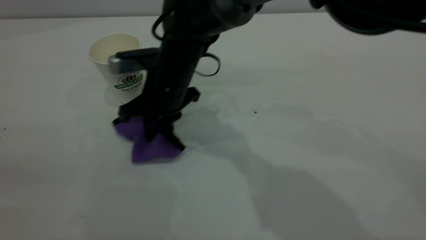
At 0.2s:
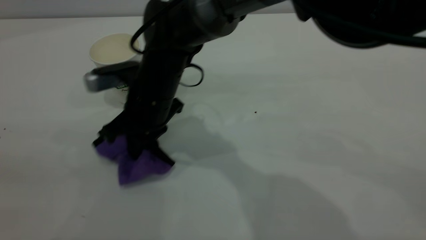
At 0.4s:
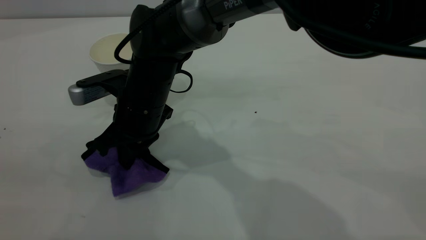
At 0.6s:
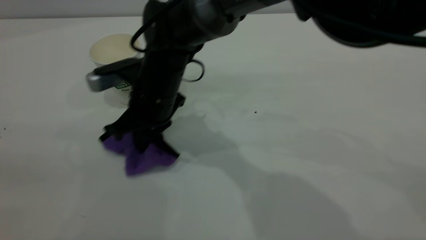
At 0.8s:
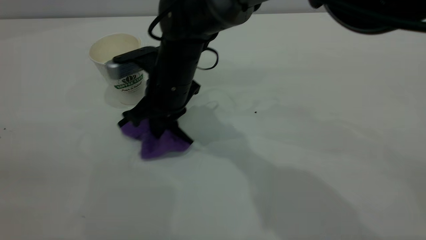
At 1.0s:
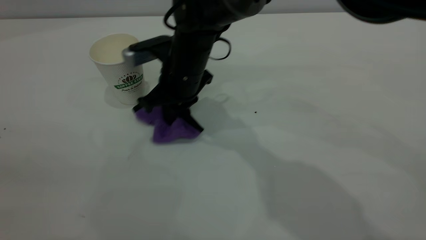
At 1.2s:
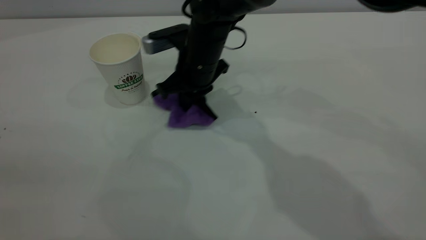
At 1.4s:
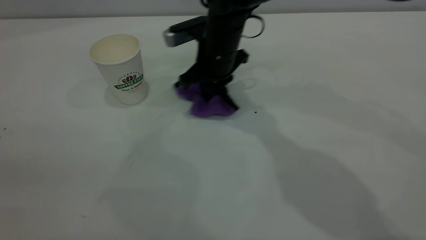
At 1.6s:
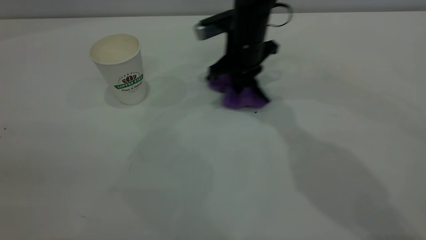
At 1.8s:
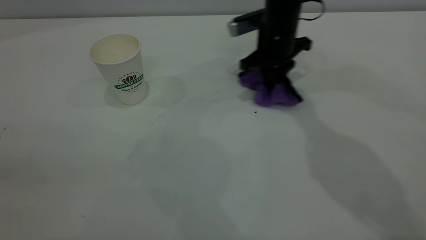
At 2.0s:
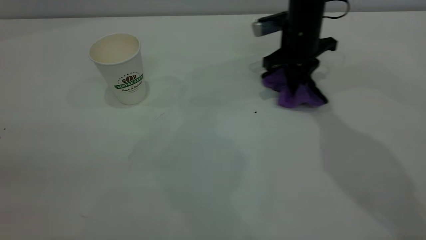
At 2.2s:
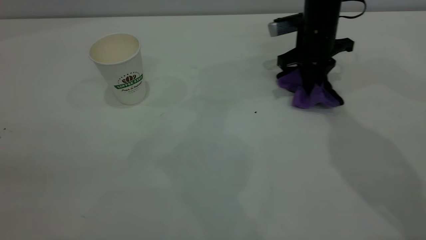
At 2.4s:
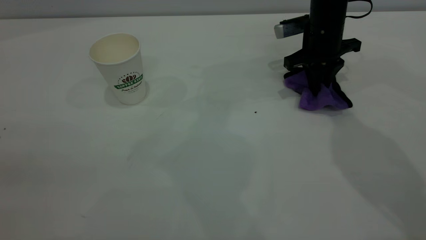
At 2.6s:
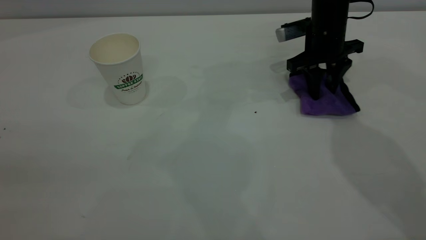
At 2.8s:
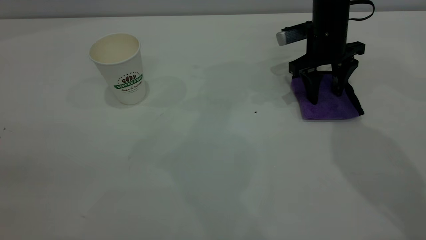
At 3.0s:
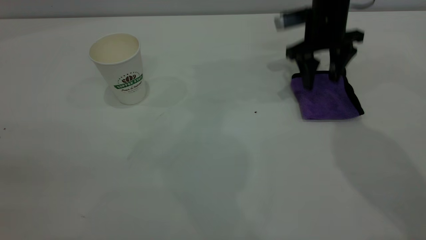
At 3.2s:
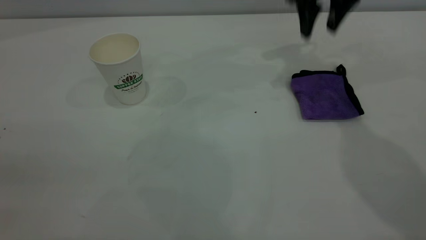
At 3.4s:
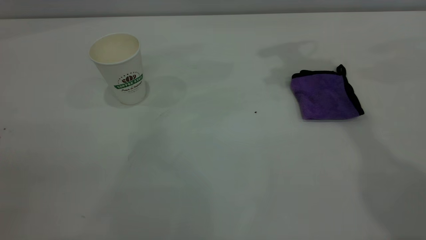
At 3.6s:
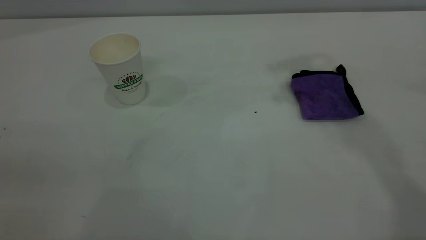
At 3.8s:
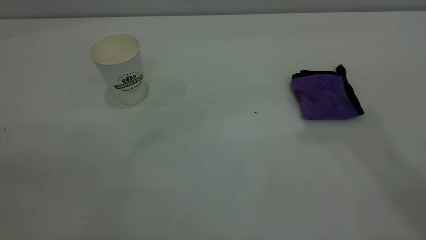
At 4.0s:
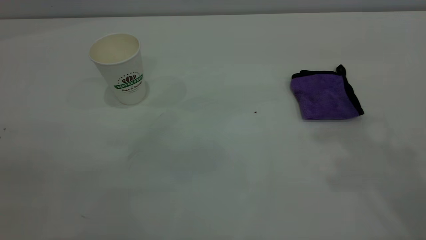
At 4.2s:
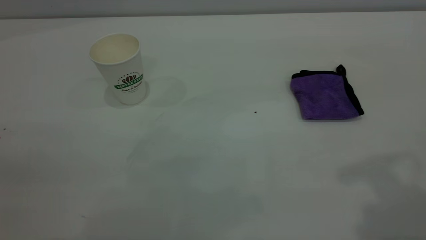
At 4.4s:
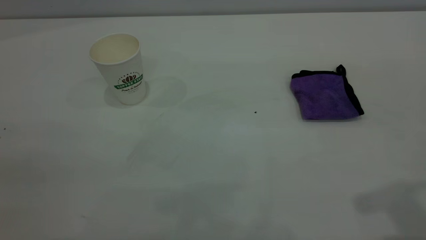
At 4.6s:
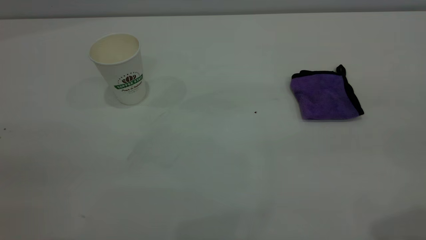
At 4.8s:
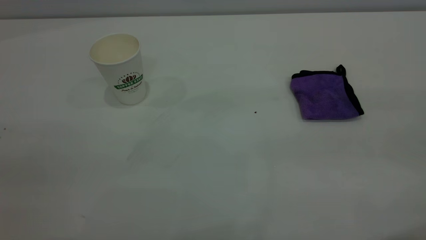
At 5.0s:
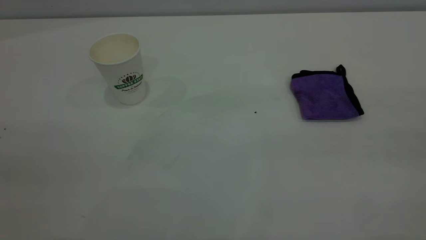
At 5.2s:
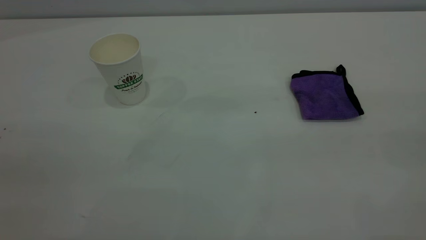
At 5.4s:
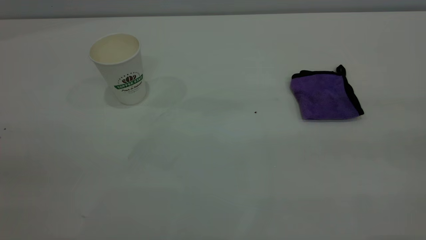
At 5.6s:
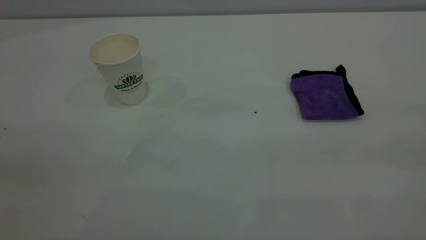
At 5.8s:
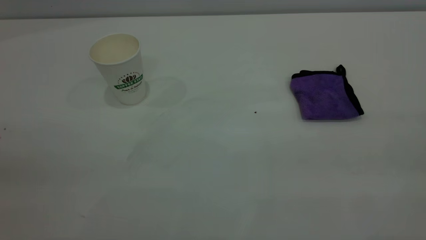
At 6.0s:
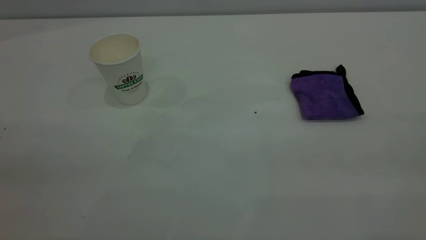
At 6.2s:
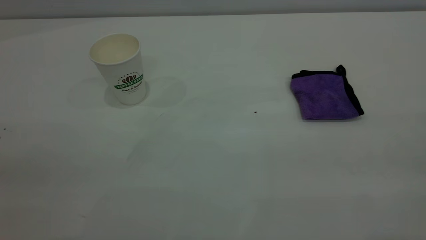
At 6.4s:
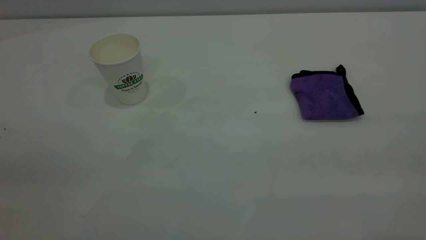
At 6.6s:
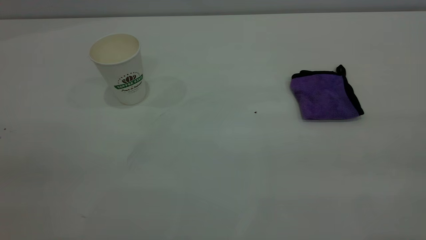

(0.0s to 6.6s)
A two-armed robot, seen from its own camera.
Task of the whole recording: the left gripper pick up the fallen cup and place it upright, the right gripper grasp the purple rag and wipe the coffee stain on the table, the right gripper put the purple rag back in its original position.
Step, 0.0s - 3.0s: Wipe the stains off the table with a rag.
0.0s - 1.6s: The right gripper shifts roughly 20 cm to the right and forward.
1.6s - 3.2s: The right gripper travels upward and to the right by some 20 cm, and opens its fingers.
3.2s - 5.0s: The right gripper shifts some 40 cm backward.

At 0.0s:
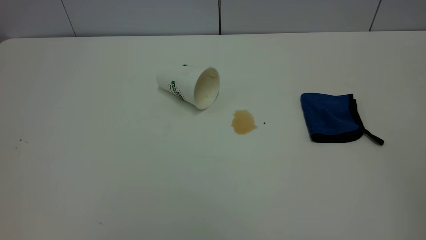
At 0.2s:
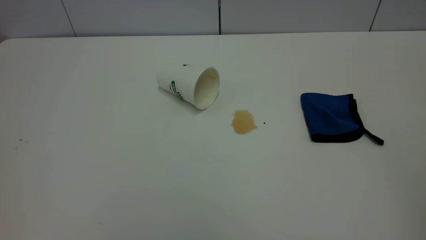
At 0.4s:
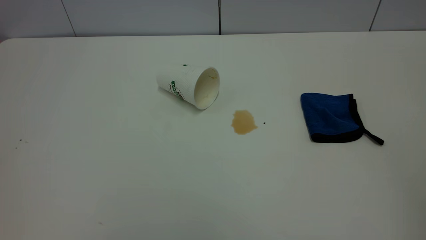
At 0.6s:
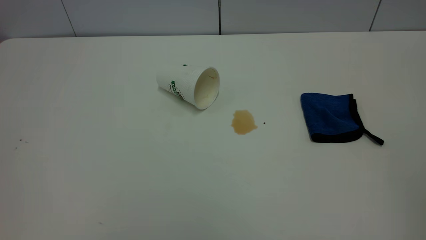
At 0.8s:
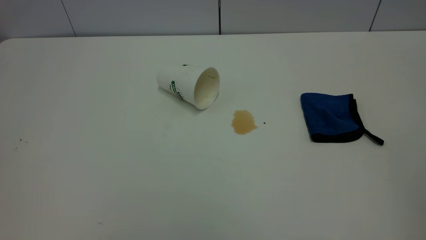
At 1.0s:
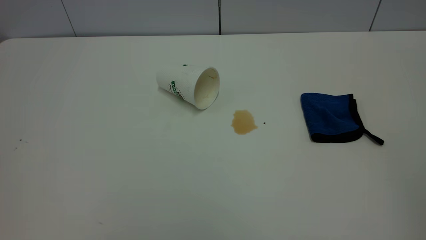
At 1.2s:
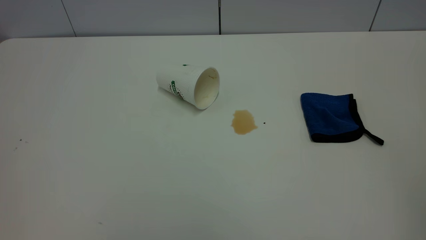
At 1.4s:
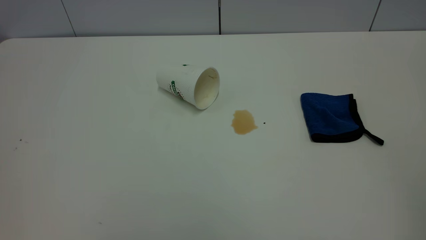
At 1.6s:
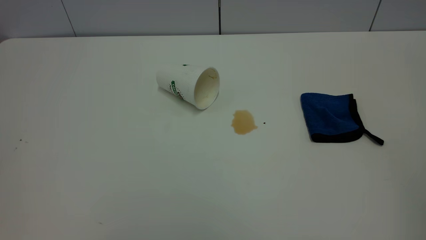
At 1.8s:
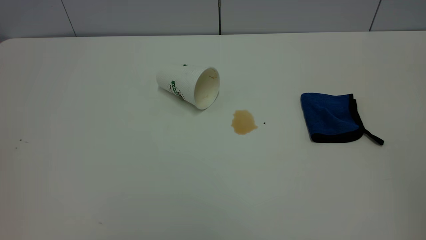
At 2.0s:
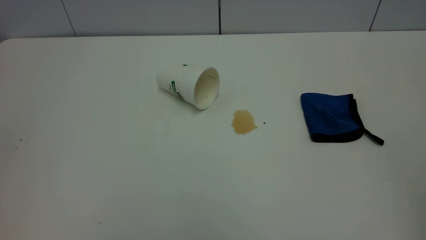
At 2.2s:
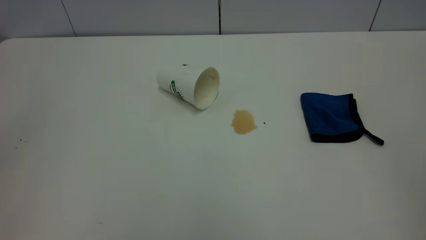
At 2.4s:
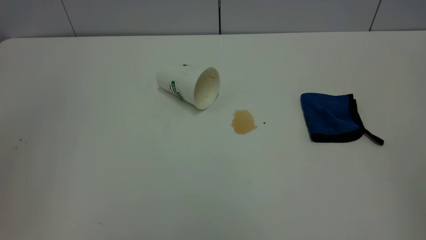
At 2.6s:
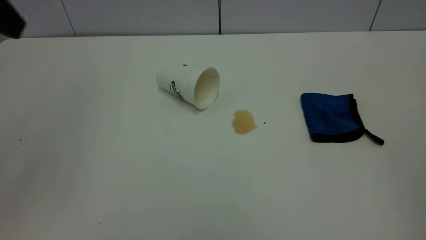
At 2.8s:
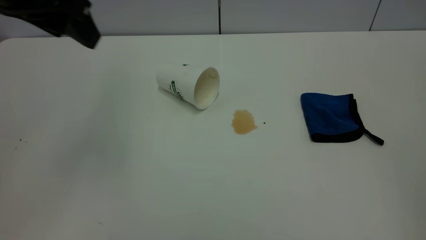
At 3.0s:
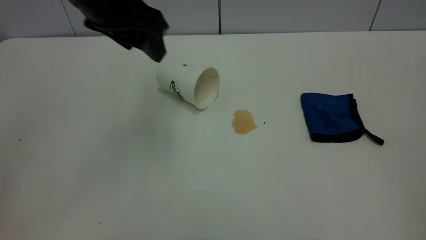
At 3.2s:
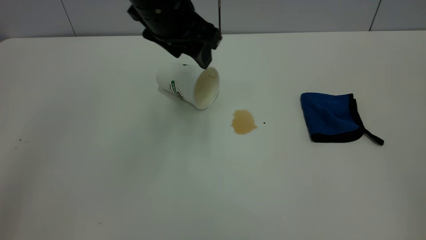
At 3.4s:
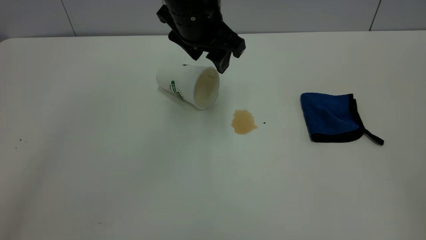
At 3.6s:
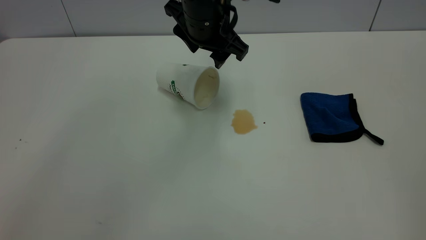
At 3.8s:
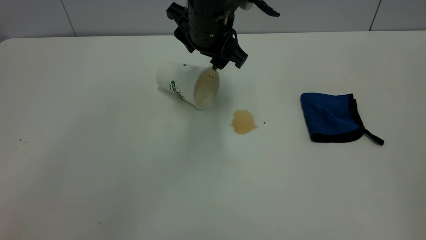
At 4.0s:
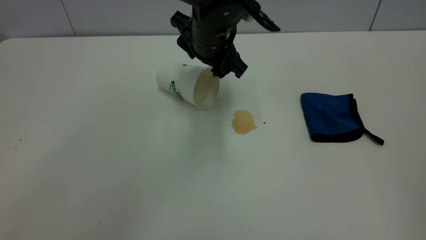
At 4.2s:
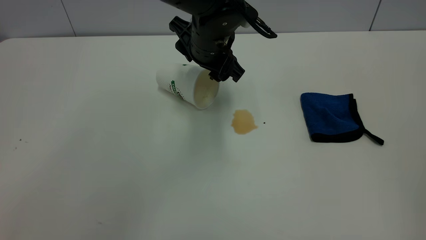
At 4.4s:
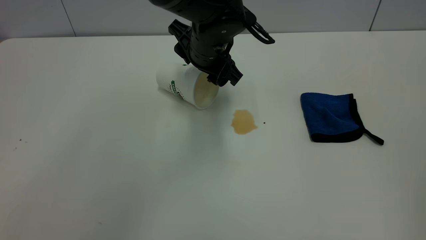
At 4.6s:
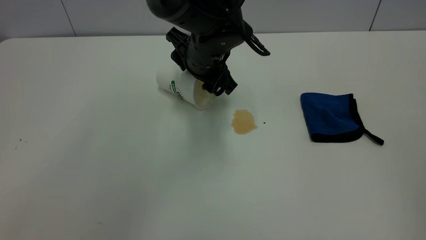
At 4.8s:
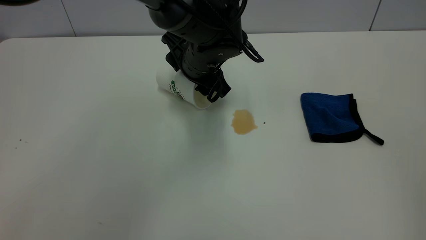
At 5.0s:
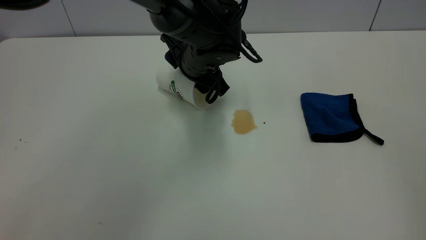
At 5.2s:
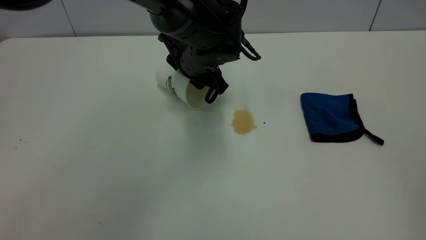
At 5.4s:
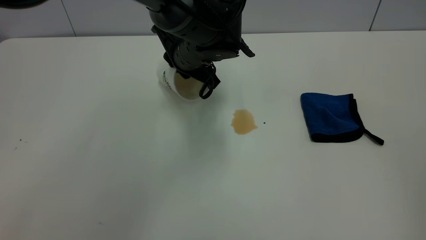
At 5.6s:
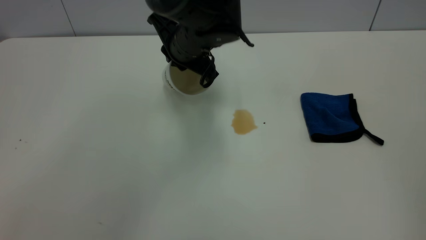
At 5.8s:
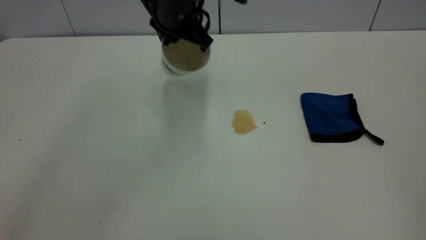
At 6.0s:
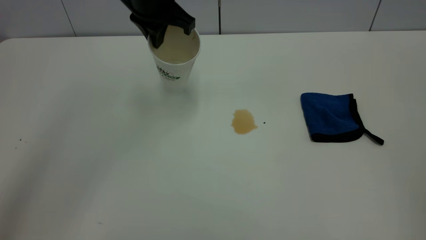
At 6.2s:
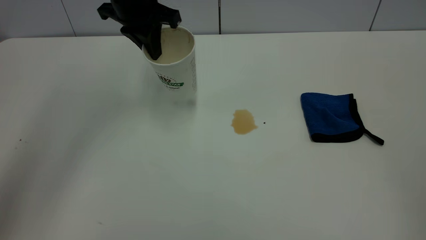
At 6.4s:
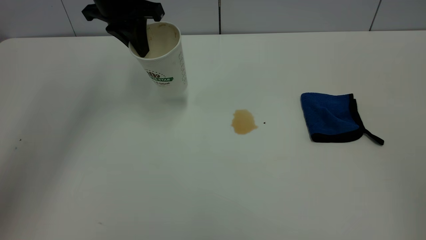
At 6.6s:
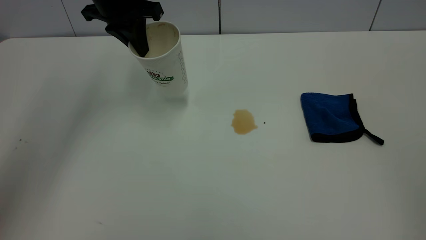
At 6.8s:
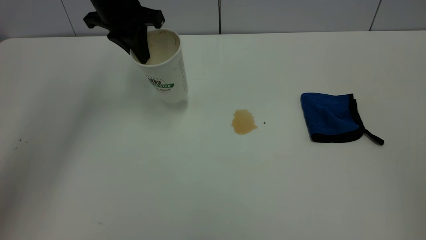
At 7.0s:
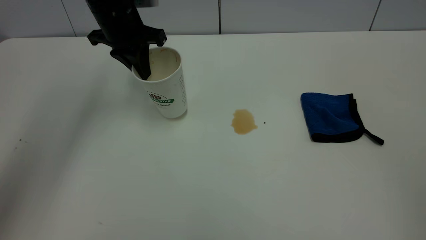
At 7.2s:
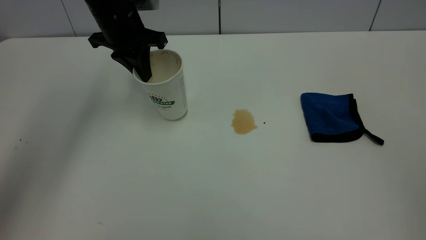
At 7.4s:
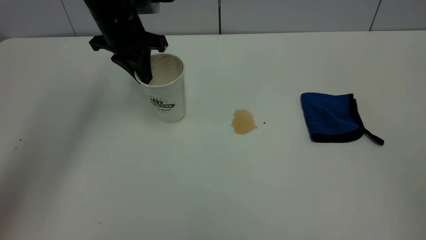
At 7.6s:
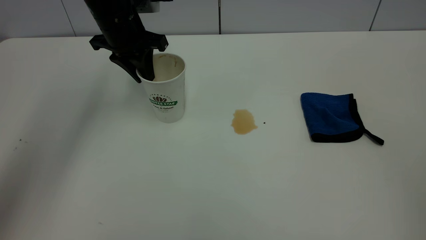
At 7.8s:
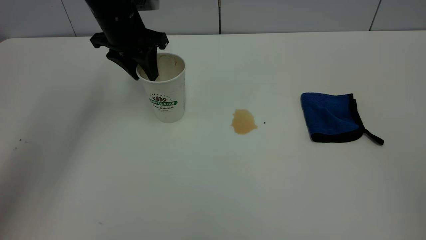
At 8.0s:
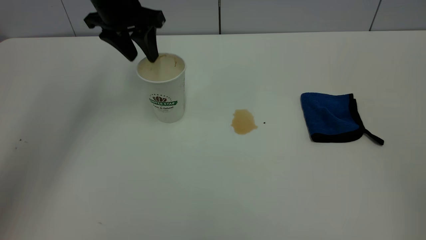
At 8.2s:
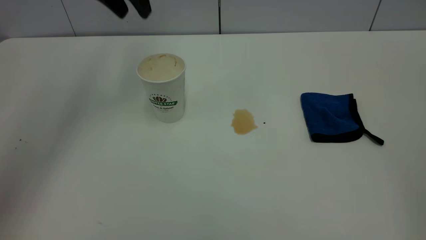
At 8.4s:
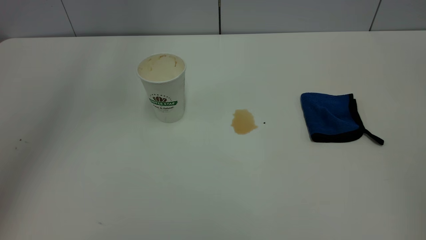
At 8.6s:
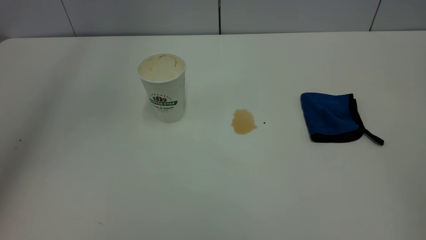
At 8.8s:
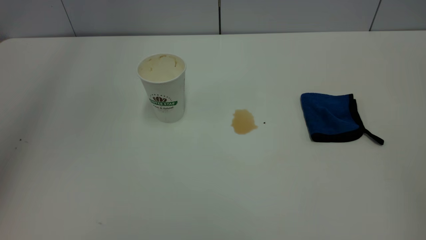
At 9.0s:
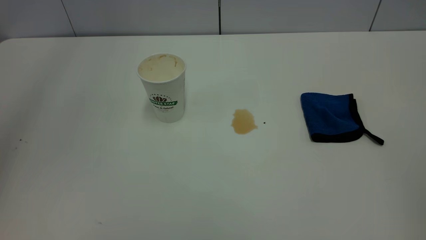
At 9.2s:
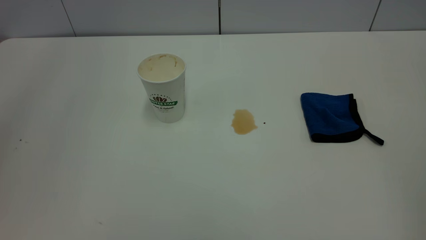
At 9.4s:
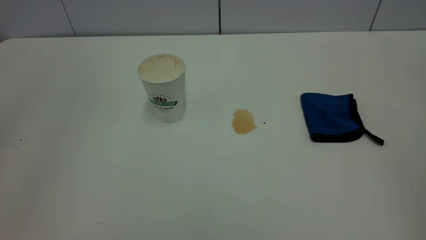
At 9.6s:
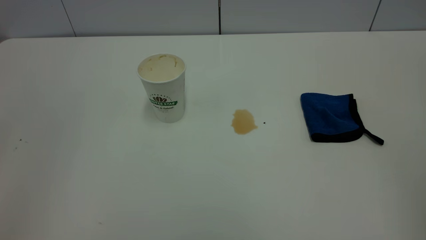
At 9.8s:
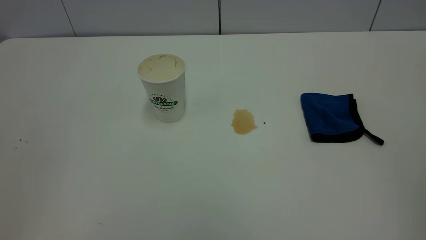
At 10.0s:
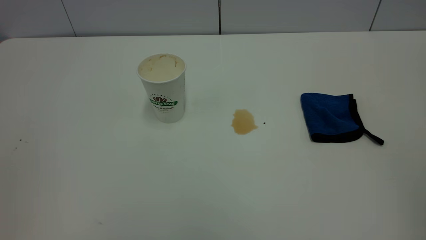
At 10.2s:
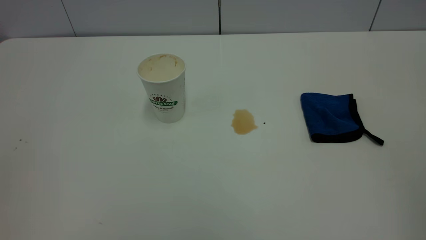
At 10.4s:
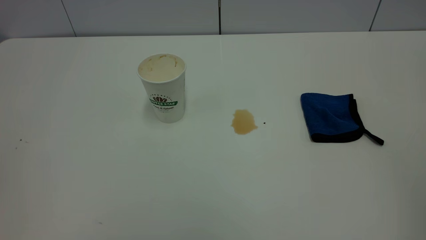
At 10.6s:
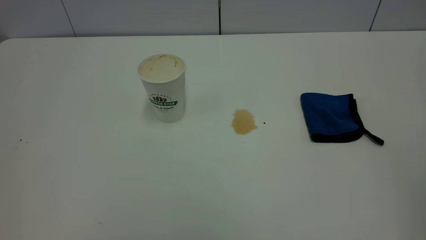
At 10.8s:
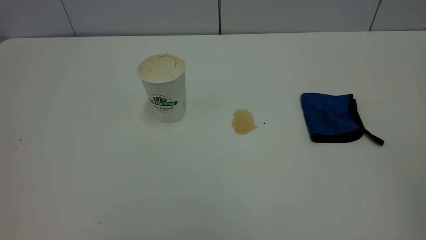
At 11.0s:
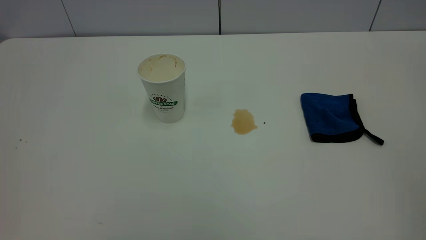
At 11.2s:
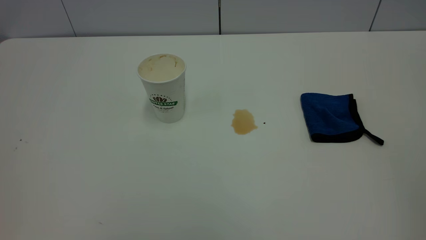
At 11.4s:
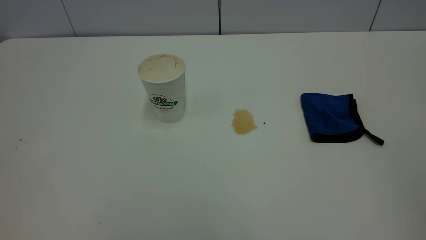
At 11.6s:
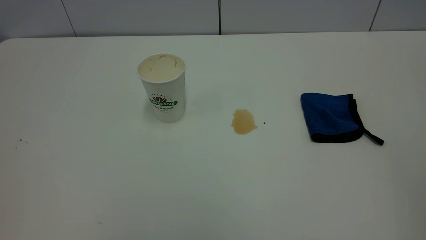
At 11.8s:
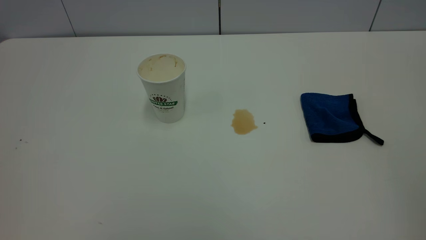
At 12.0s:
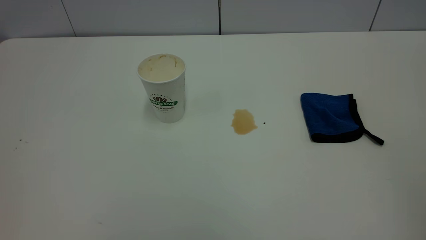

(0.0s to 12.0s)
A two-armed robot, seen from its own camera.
Task of the whole recording: the left gripper pick up the fallen cup and place it upright, the right gripper grasp the blue rag and wipe the tea stain on the table, the right gripper put the blue rag back in its original position.
Step, 0.0s - 8.0s: Stand the paper cup upright.
0.0s - 1.6s: Both grippers stay about where they are.
1.6s - 3.0s: The left gripper shifts some 40 cm forward and to the right.
3.0s - 4.4s: The left gripper shifts approximately 20 cm downward, to the right and forward.
4.4s - 6.0s: The left gripper goes about 15 cm to the left and upward, and closes.
6.0s - 7.6s: The left gripper heads to the left and downward, covering roughly 10 cm, and opens up.
7.6s - 9.0s: The left gripper shifts approximately 40 cm upward and backward, and opens up.
